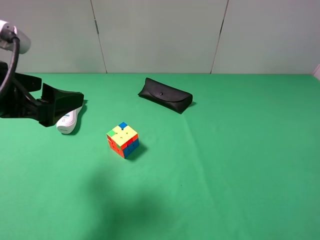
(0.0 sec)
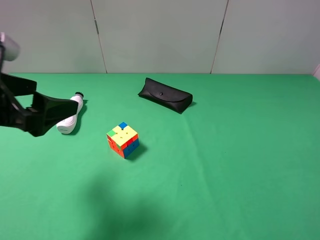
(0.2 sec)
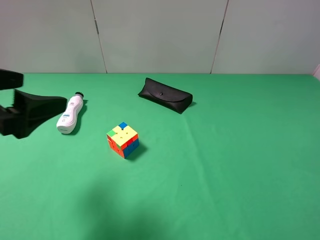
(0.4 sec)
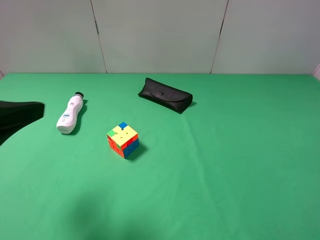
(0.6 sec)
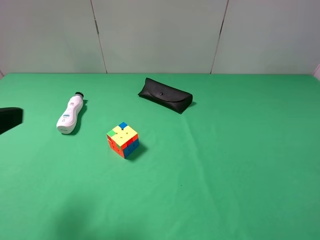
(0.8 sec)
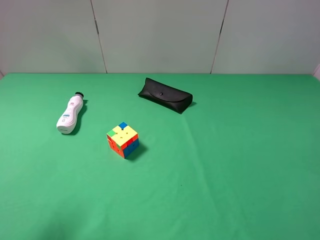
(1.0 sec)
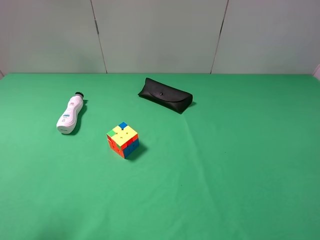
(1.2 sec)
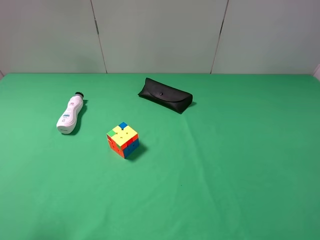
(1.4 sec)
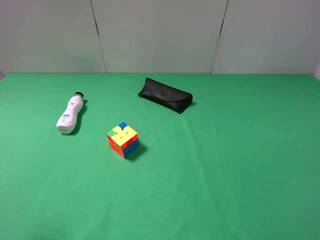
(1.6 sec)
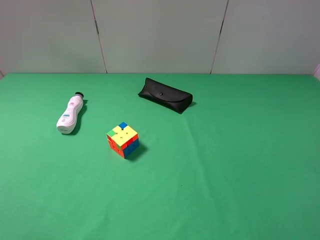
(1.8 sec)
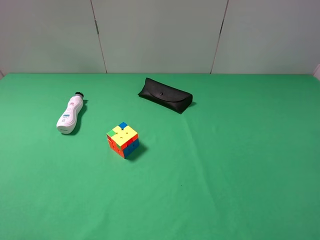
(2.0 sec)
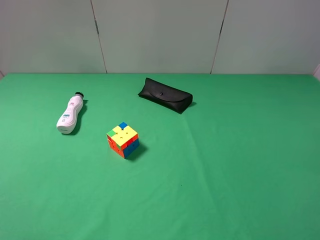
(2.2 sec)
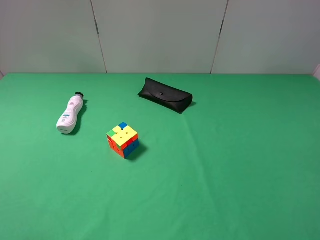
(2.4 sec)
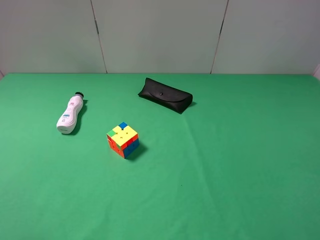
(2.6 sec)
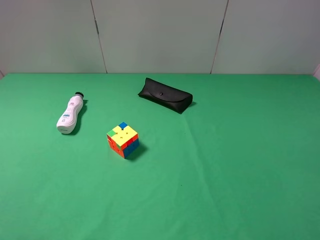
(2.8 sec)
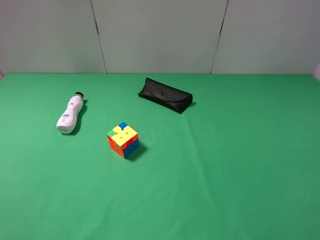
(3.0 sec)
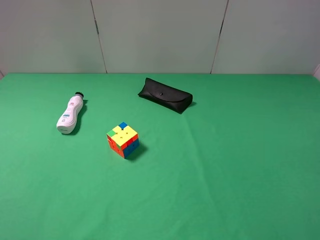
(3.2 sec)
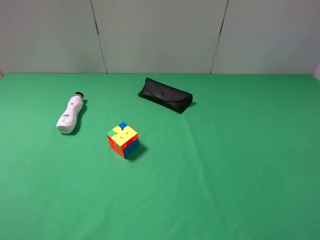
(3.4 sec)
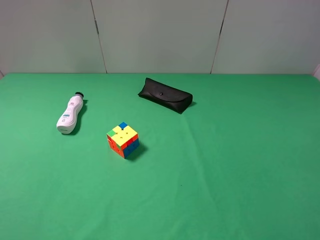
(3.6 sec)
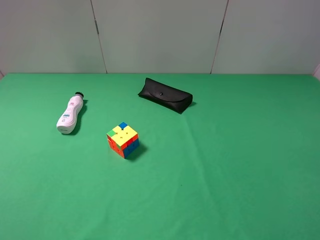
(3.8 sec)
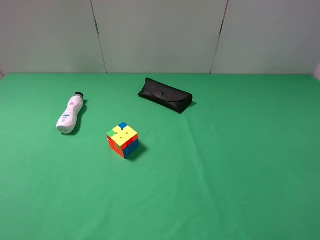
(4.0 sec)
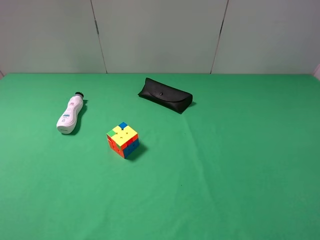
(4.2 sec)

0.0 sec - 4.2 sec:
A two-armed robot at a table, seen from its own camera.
Task of the whole recording: use the right gripper to pick up the item and transfer it from the right gripper to the left gripper.
0.0 sec - 1.4 sec: The left gripper moves backward and to the left, about 15 cm.
